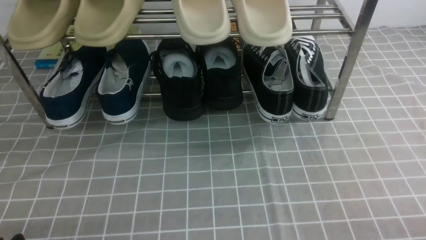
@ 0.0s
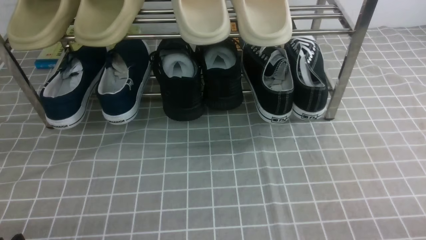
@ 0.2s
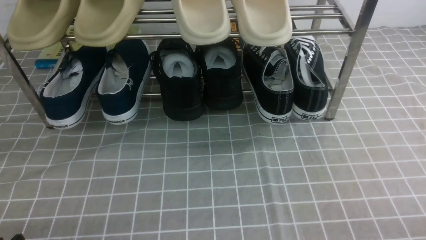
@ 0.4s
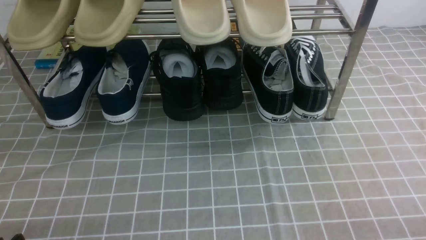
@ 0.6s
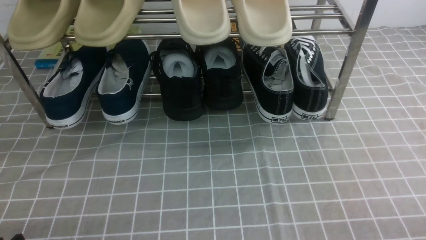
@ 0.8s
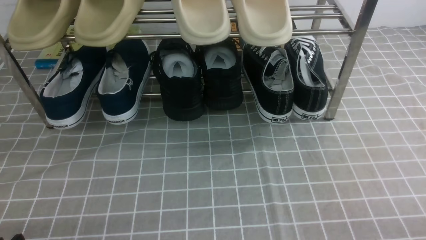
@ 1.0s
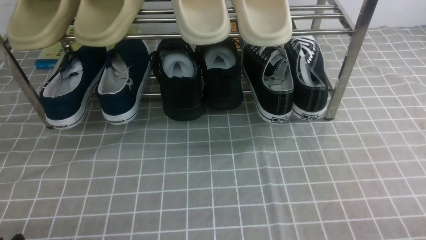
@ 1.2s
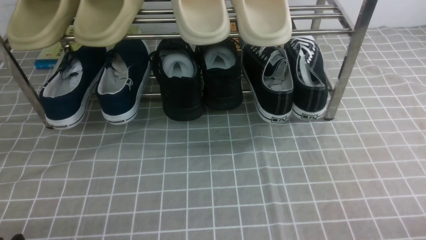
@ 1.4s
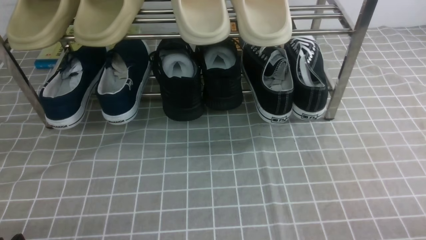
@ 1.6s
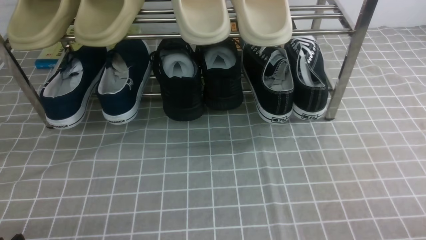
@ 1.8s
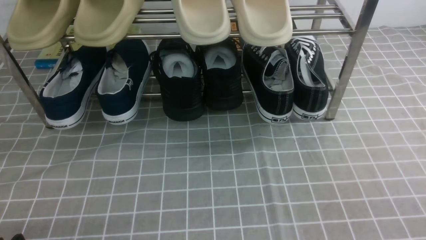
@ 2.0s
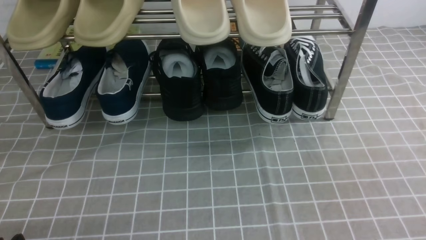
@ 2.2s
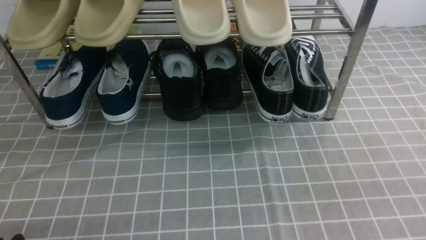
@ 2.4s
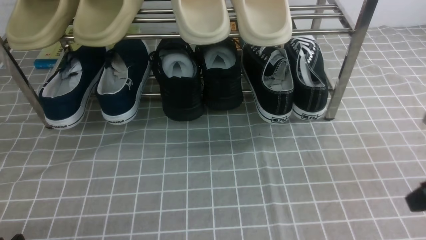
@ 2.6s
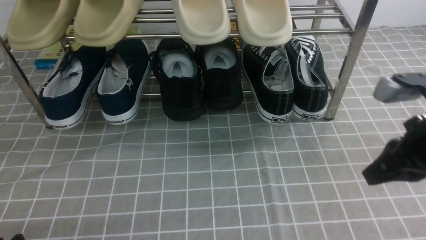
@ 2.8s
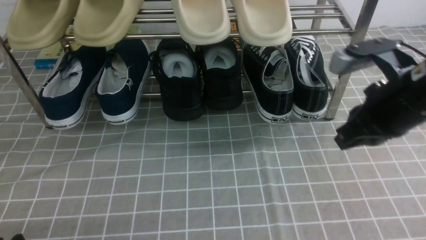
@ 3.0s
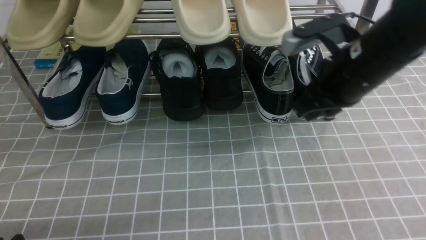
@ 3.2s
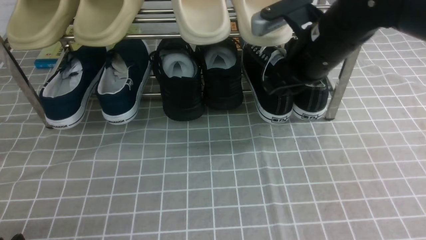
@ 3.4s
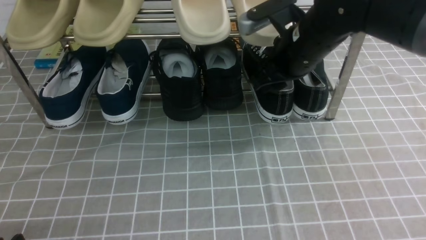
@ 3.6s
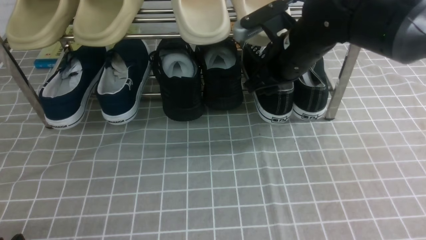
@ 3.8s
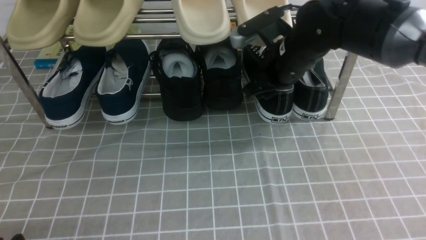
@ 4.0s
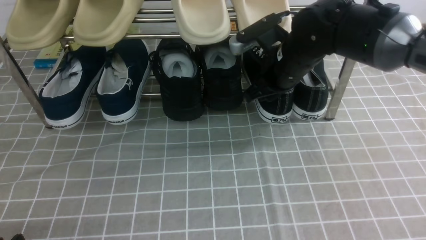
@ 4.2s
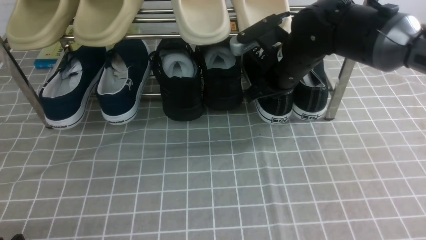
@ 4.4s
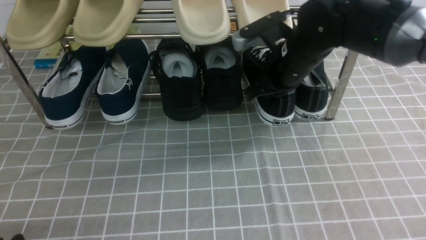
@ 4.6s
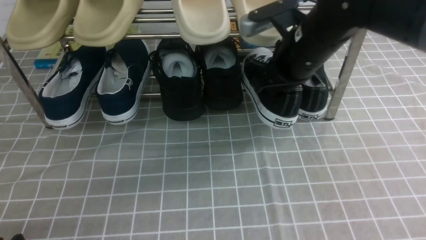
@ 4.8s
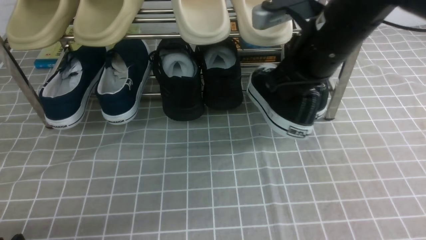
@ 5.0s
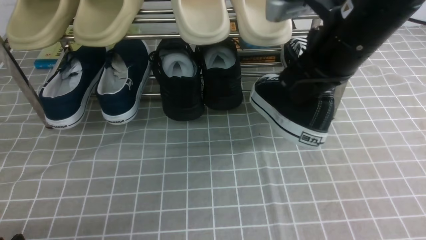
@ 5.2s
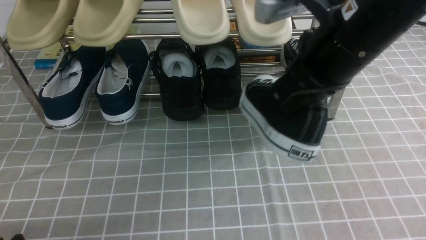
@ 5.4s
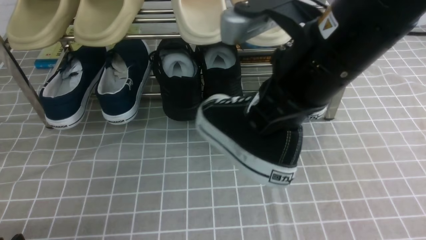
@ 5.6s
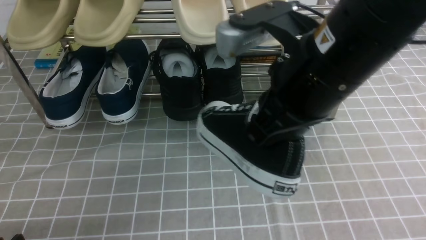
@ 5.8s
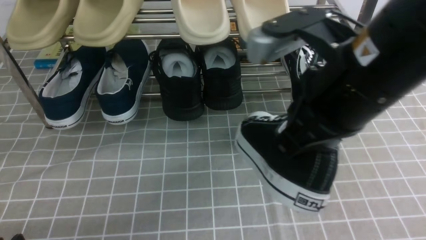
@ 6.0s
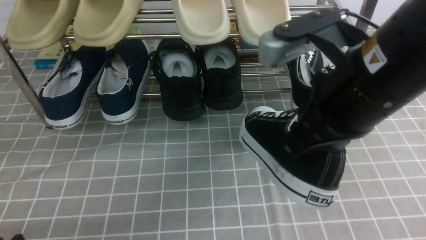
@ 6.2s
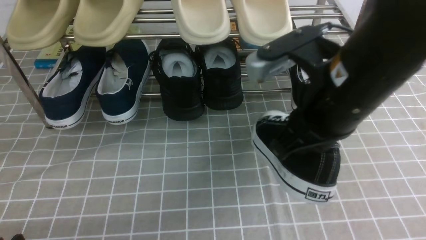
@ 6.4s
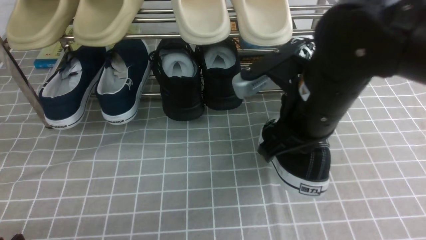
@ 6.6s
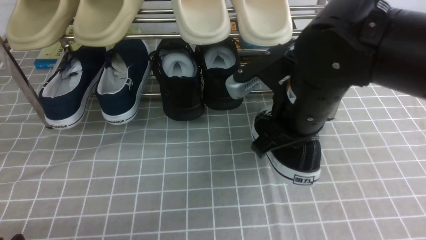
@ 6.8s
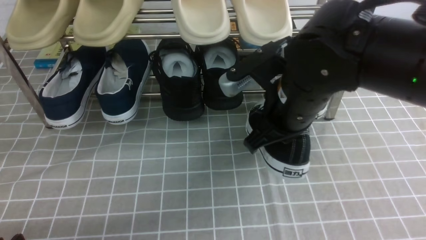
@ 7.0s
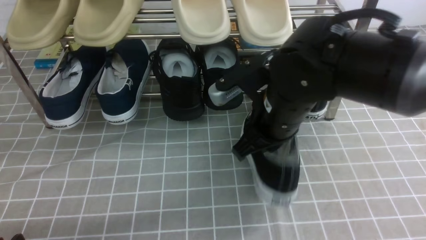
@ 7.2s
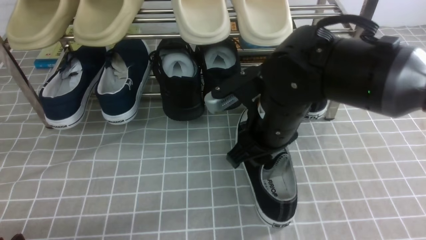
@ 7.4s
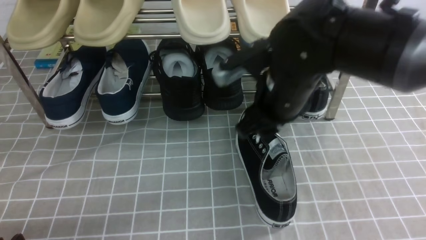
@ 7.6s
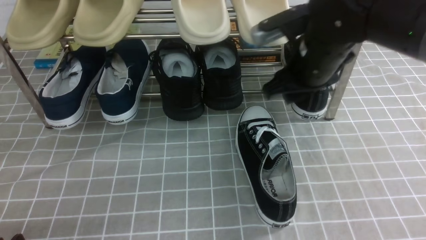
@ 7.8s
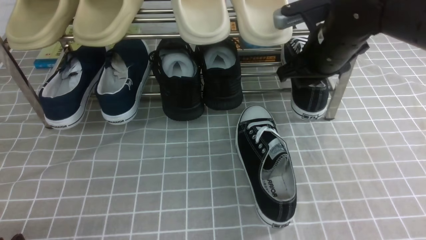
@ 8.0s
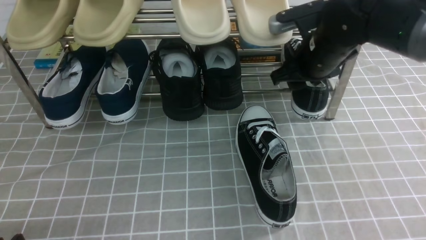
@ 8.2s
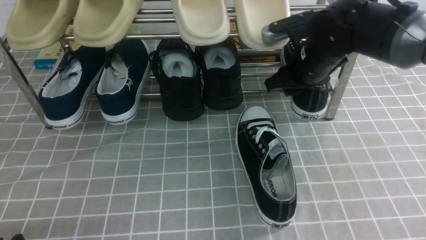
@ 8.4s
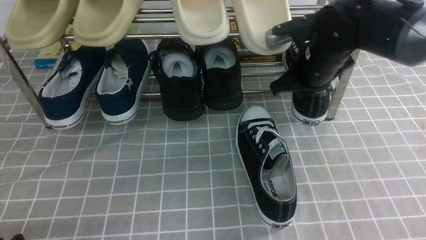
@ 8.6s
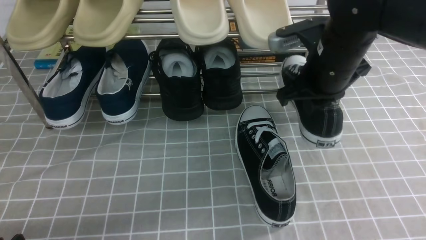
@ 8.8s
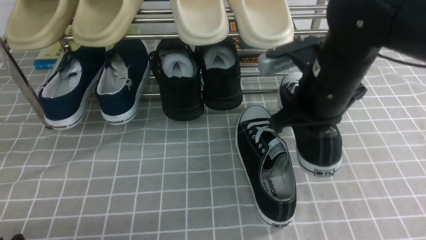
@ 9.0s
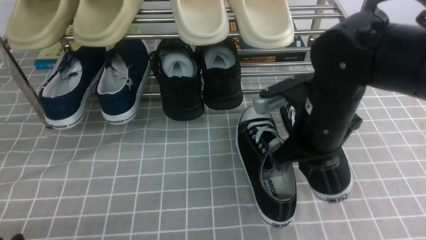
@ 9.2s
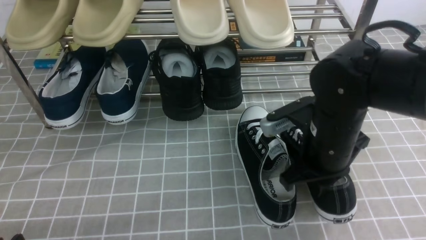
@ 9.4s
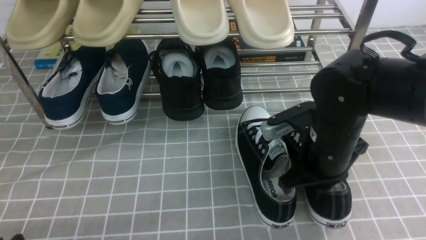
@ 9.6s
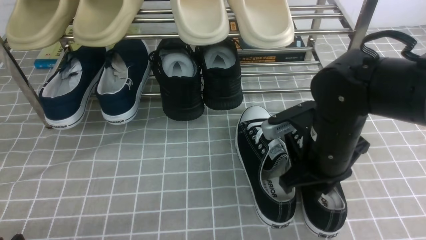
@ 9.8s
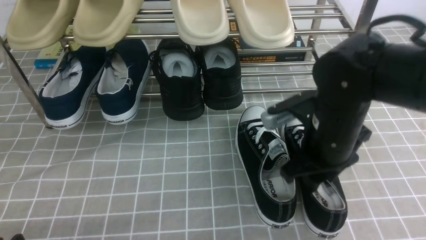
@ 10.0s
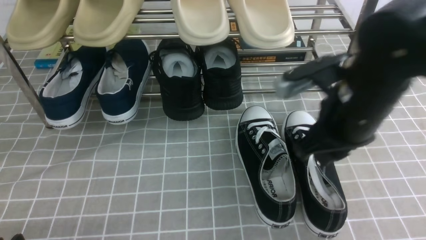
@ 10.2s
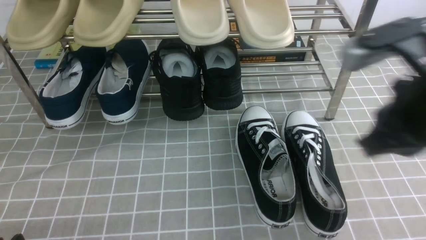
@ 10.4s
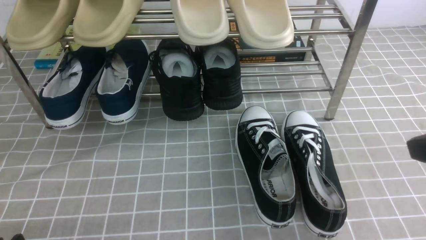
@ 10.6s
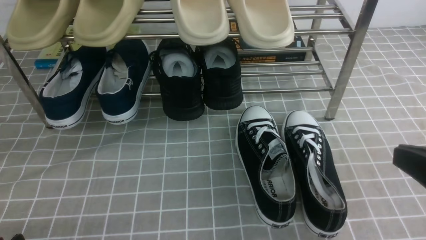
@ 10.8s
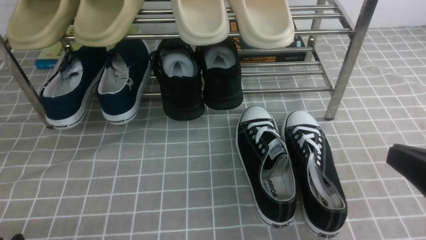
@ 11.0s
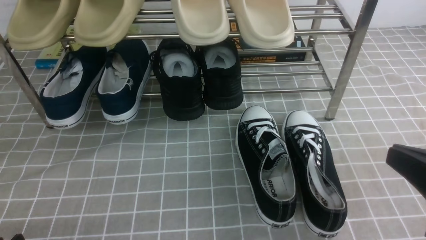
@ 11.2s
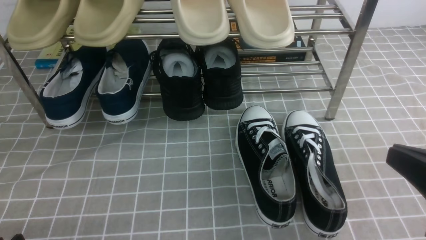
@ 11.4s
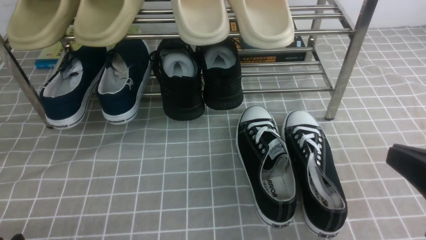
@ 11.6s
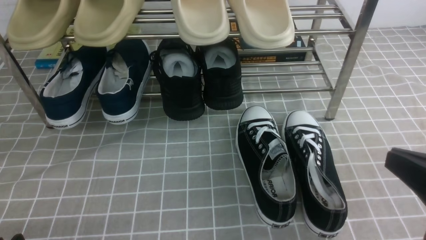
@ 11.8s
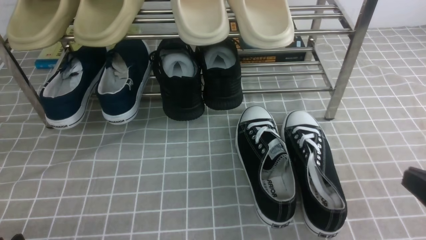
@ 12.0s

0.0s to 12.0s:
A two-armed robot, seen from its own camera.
Step, 0.0s to 4.8s: use the right arm to clamp a shoe on the right side of the shoe rack.
Step, 5.0s to 7.4s: use the right arm to take out the clamped shoe from the shoe rack and put it down.
Step, 7.6s to 8.6s: use the right arm to clamp a shoe on the right side of the shoe rack.
Step, 8.8s to 10.0s: use the right arm to take out the clamped shoe from the shoe rack and put it down.
1.6s to 3.0s: The right gripper goes roughly 25 cm forward, upward and to the left, and closes its fingers.
3.0s to 4.4s: The right gripper heads forward and to the left, covering approximately 15 cm, and opens, then closes once more.
4.4s to 6.0s: The right gripper shifts roughly 20 cm backward and upward.
6.0s to 7.6s: The right gripper shifts approximately 15 cm forward and downward, and opens.
7.6s to 9.0s: The right gripper travels forward and back again, roughly 10 cm each way, and closes its fingers.
9.0s to 10.4s: The right gripper heads backward, to the right and upward, covering about 15 cm, and opens, then closes again.
10.4s to 12.0s: The right gripper shifts roughly 15 cm downward, backward and to the right.

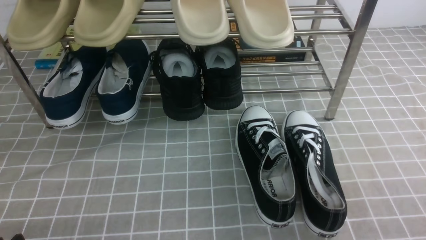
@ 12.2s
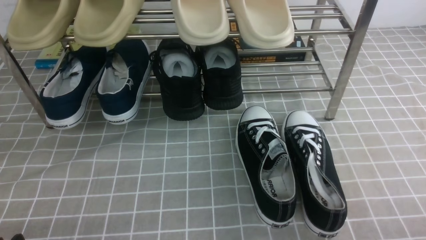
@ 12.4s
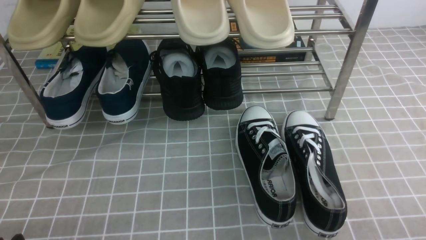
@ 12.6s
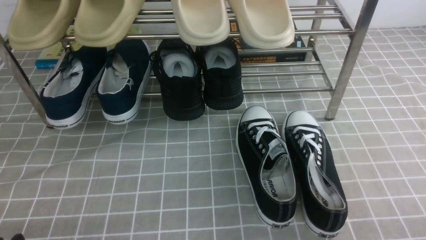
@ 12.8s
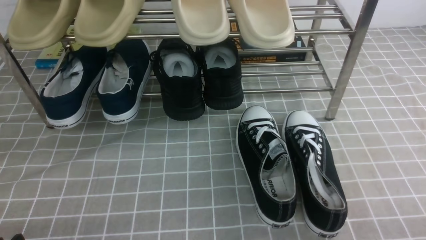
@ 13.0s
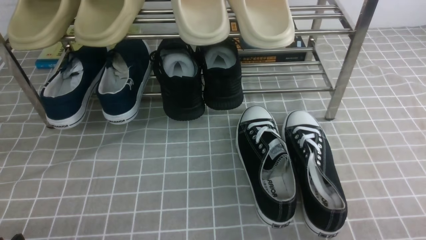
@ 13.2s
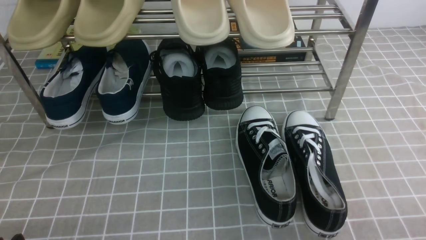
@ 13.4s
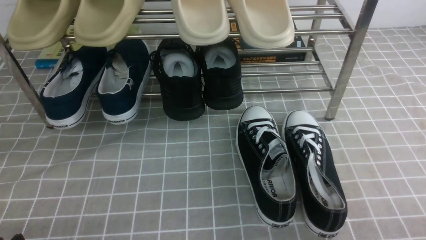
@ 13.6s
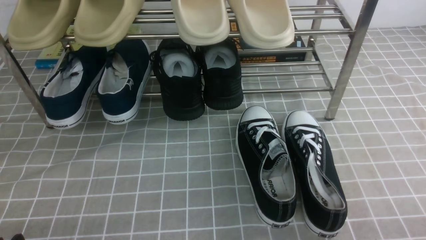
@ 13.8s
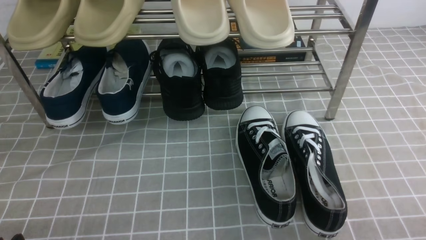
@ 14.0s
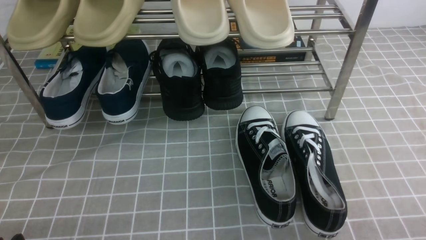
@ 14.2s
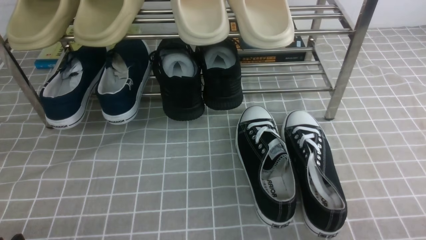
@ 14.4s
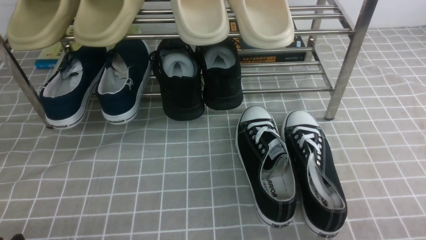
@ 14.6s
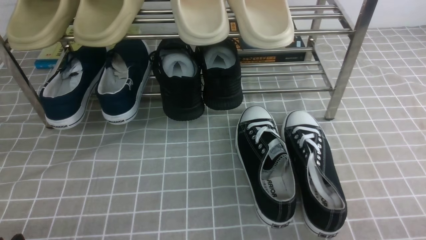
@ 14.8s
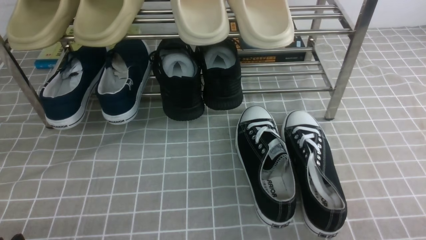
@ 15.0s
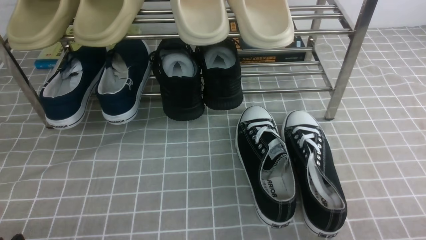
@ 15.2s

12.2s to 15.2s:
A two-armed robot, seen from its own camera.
13.8s to 15.2s: Neither gripper changes place.
